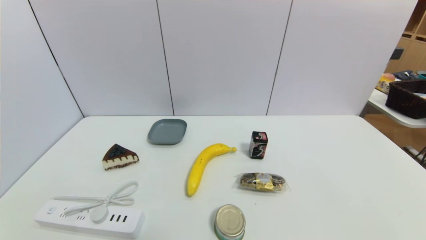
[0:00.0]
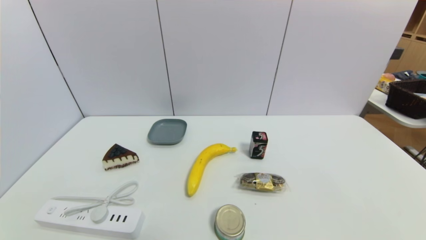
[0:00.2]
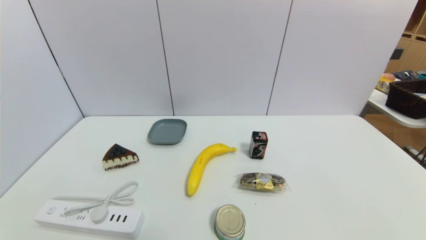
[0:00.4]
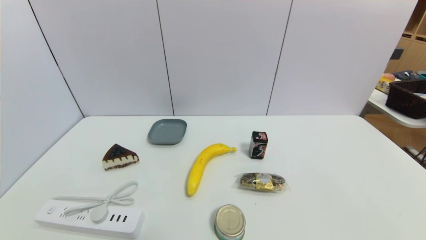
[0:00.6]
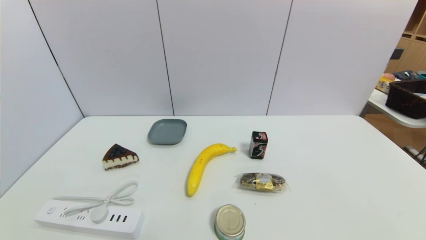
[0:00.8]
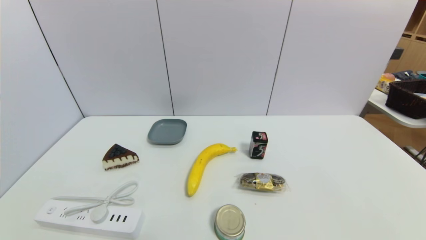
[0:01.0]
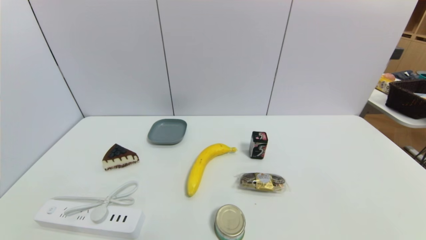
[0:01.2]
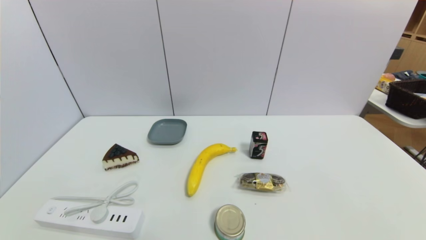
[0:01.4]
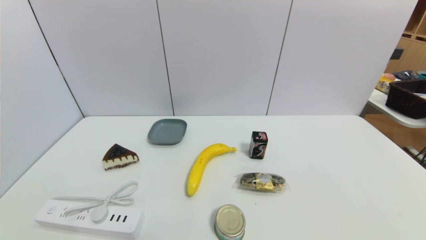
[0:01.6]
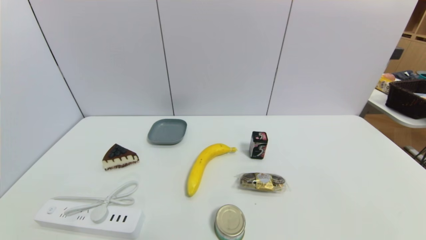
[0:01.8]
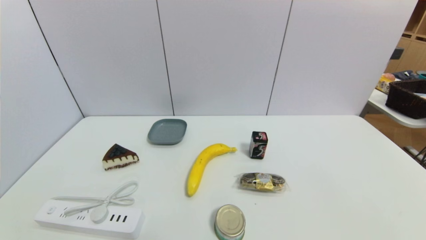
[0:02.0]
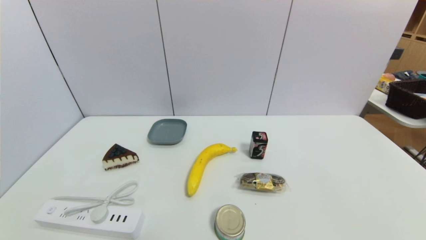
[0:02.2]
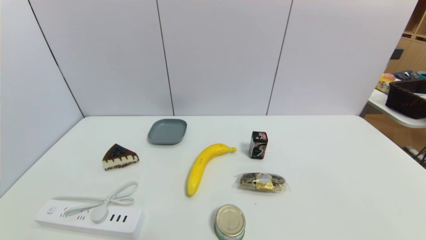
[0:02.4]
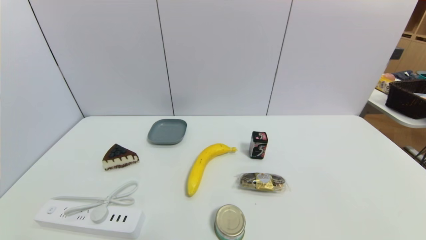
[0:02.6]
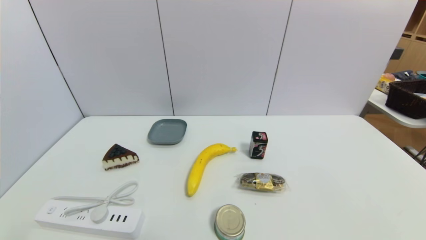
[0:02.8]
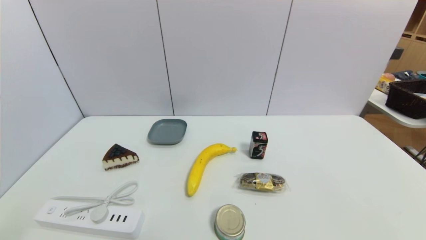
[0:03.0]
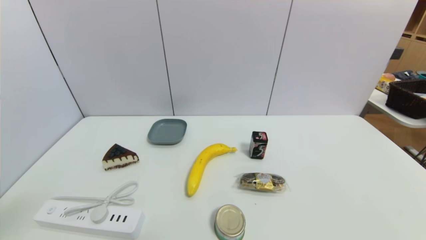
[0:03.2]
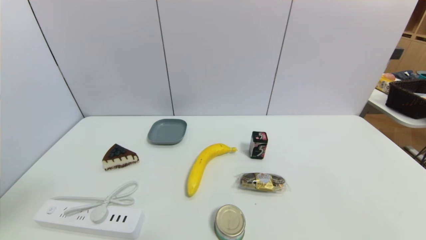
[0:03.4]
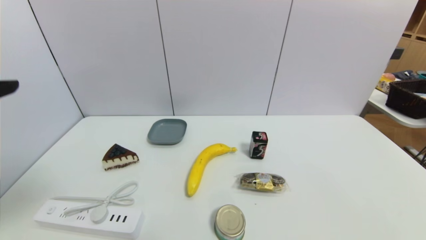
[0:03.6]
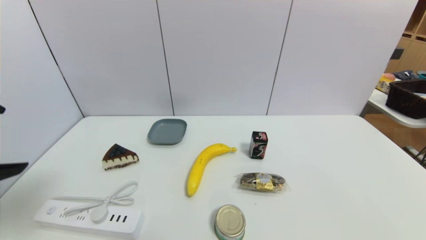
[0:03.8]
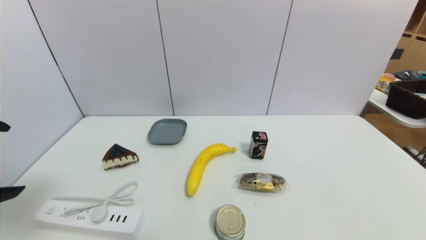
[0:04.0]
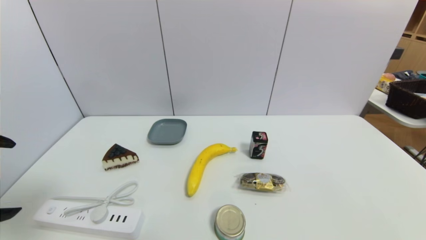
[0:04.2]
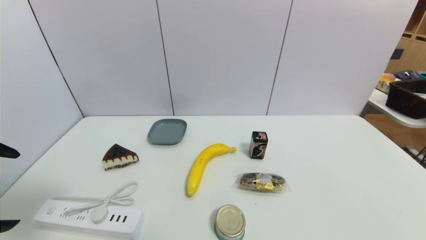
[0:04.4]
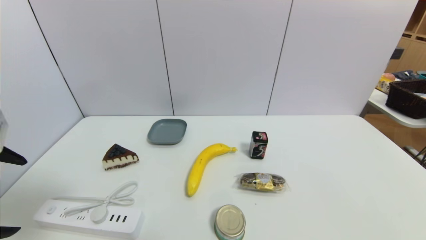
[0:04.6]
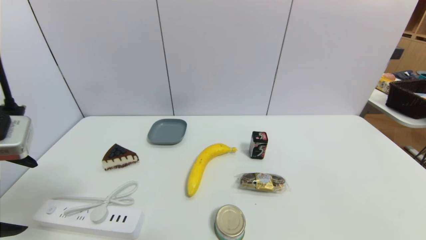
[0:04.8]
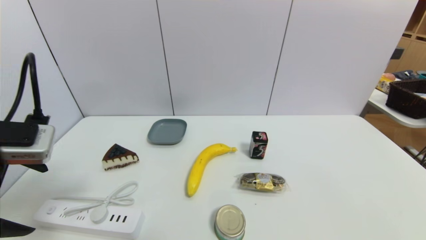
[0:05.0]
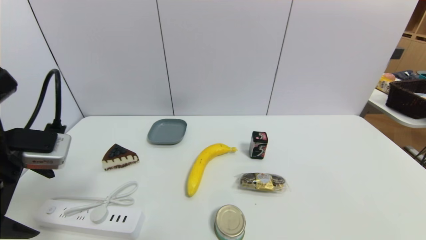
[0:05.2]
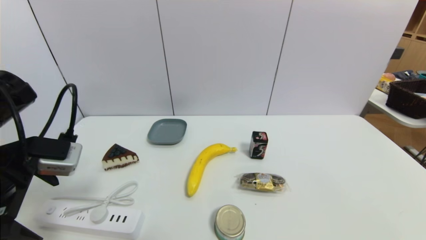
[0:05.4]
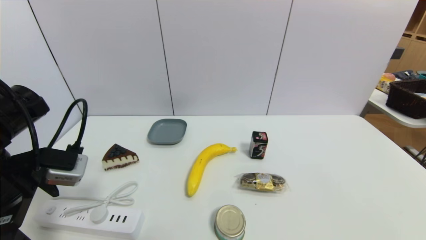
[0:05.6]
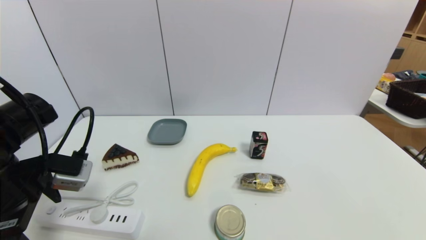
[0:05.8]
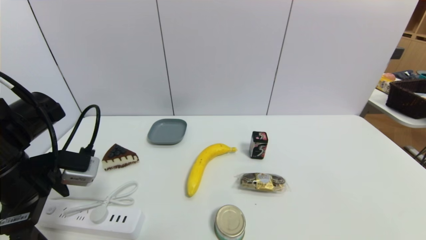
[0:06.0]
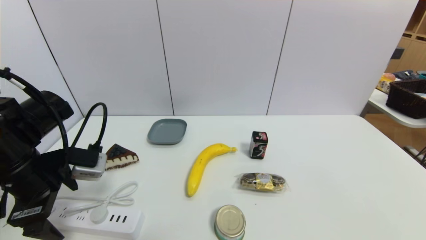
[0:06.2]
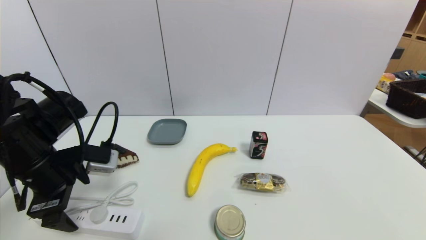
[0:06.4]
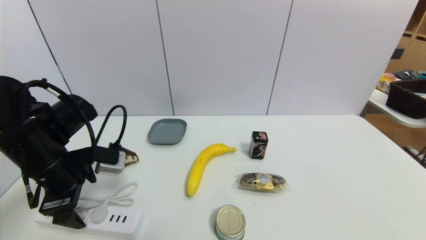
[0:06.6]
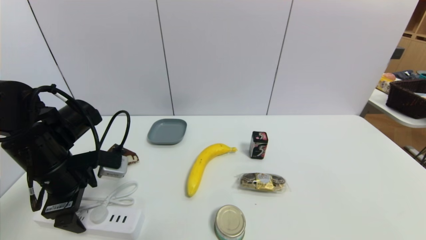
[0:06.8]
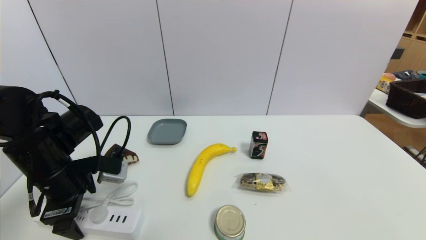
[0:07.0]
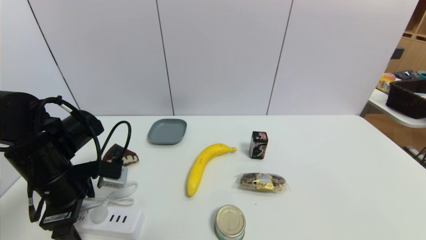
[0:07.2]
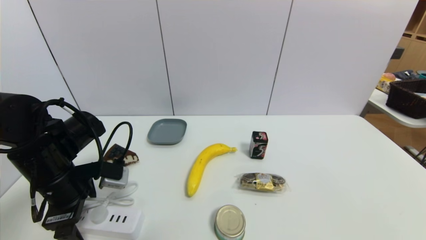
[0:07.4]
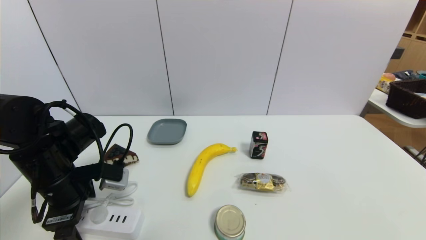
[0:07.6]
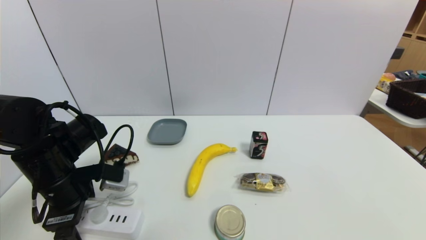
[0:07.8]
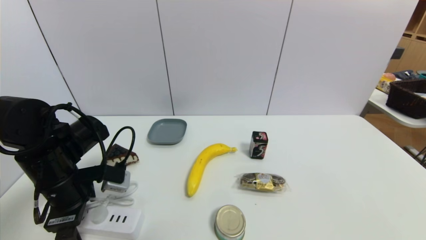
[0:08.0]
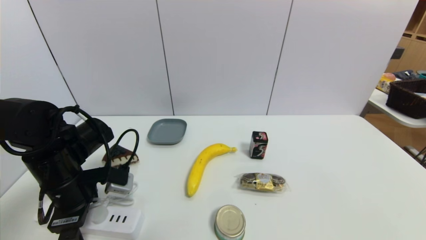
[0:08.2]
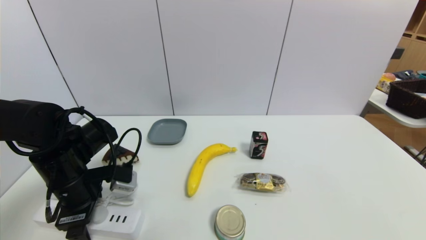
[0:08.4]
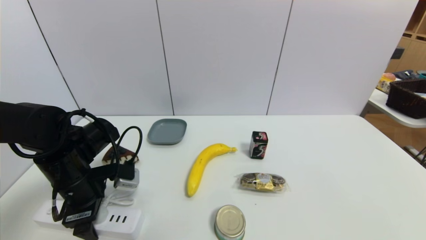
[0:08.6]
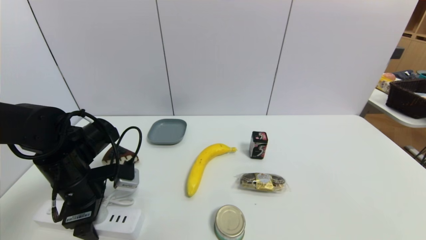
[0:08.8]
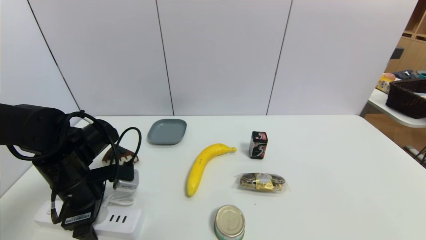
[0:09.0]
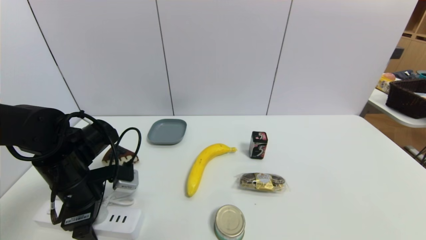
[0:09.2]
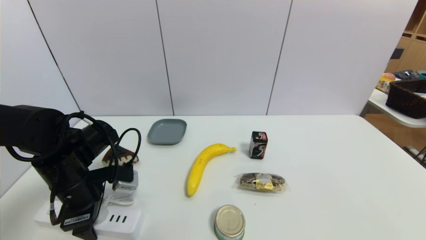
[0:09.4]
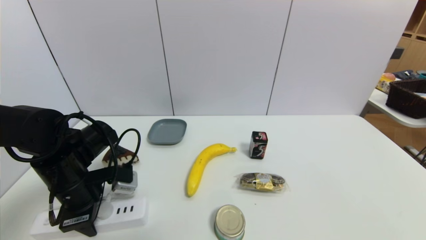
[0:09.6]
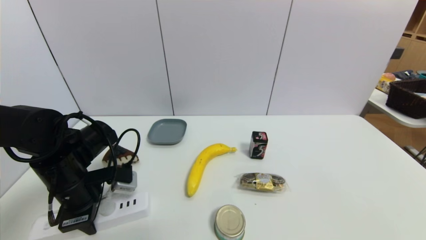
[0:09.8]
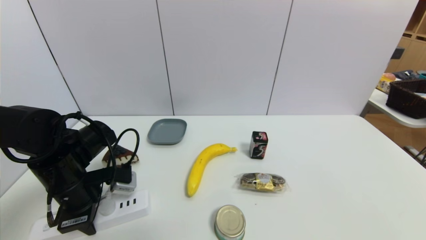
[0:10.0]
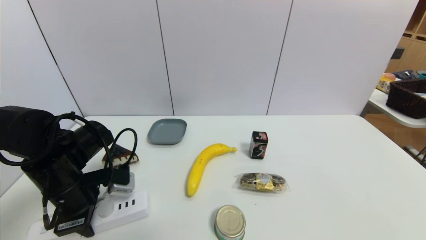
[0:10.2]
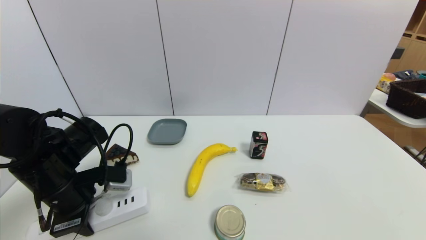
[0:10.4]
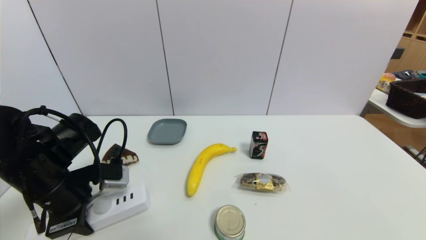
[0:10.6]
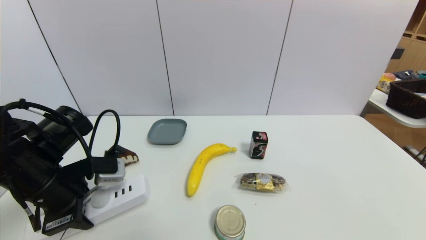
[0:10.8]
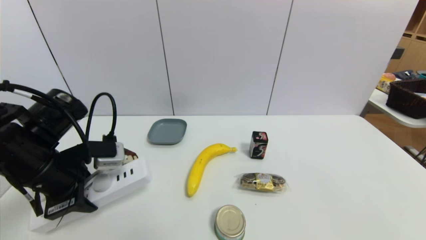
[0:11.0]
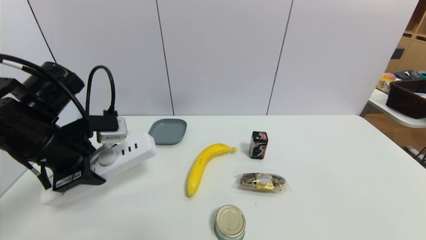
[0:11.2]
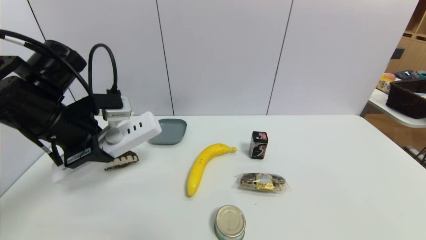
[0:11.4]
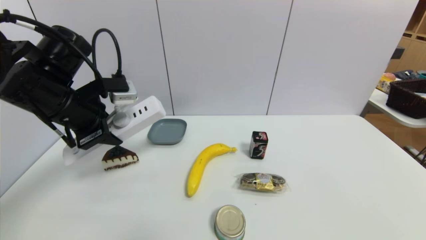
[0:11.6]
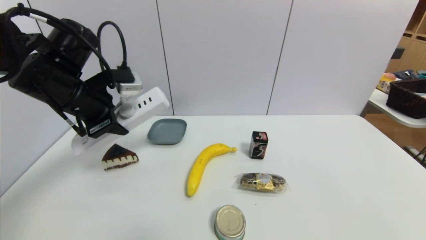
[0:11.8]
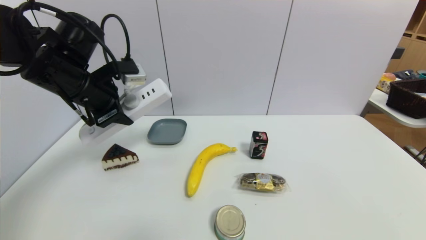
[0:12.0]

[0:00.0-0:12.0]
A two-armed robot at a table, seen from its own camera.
Task of the whole recording: use a gripper to pick the target object and place on the dish.
Step, 0:00.0 to 0:10.0: Grasp the plugboard with the left gripper.
0:00.0 to 0:01.6: Both grippers stay put.
0:03.0 to 0:04.4: The left gripper moves forward, some 10 cm.
0:04.4 to 0:06.0: The left gripper heads forward and downward, covering some 15 cm.
0:06.0 to 0:07.6: The left gripper goes roughly 5 cm downward.
0:07.6 to 0:09.0: The grippers make only small movements.
0:09.0 to 0:10.4: The left gripper closes its fingers.
0:10.4 to 0:12.0: The left gripper goes roughly 15 cm upward and forward.

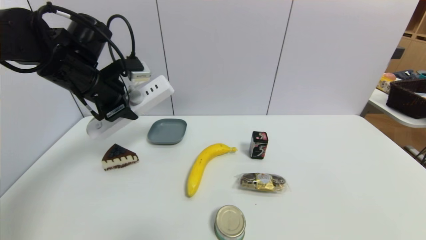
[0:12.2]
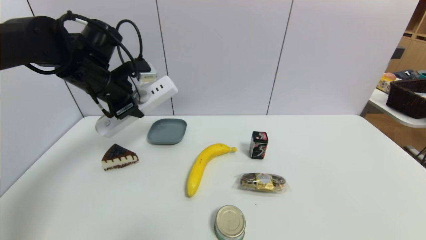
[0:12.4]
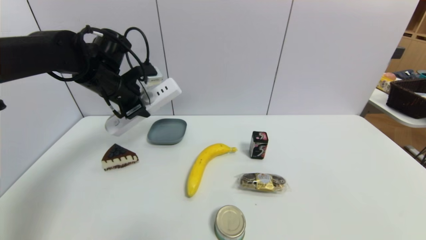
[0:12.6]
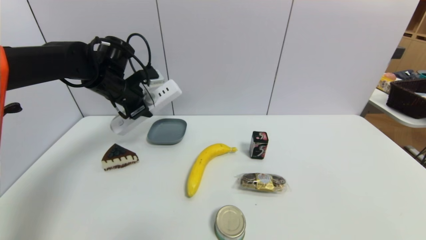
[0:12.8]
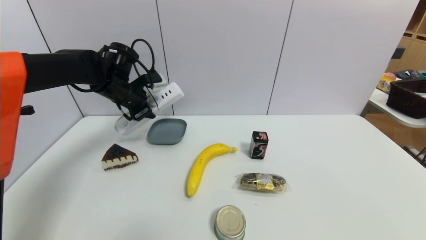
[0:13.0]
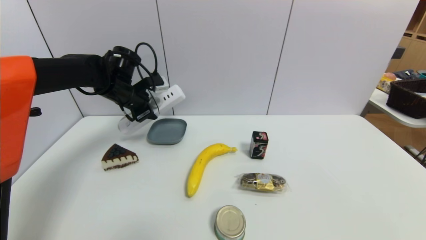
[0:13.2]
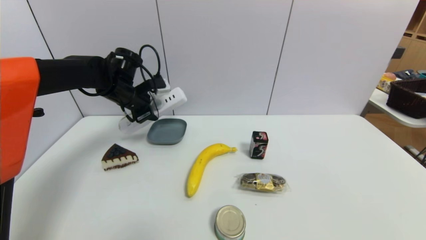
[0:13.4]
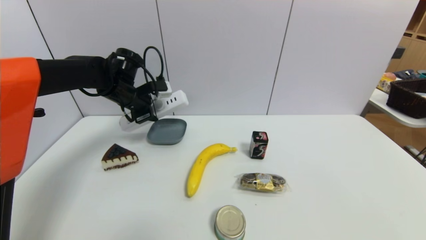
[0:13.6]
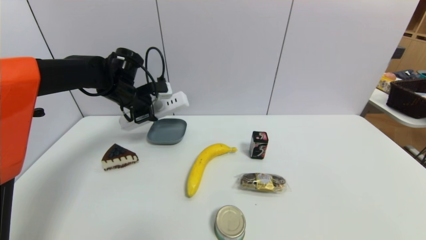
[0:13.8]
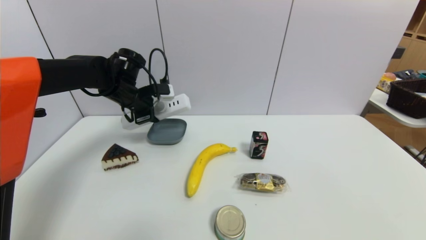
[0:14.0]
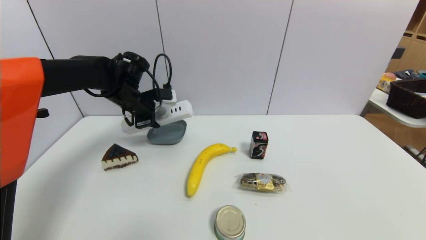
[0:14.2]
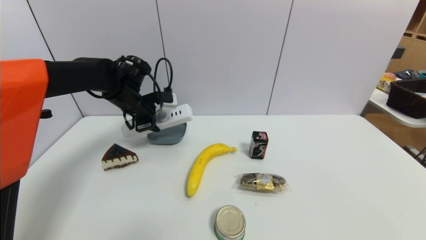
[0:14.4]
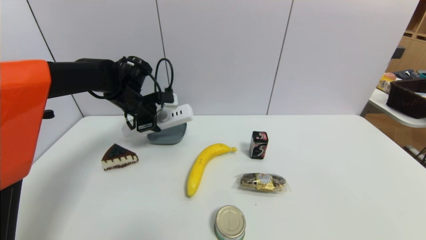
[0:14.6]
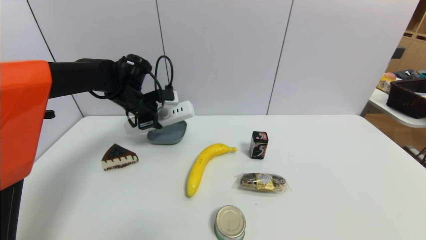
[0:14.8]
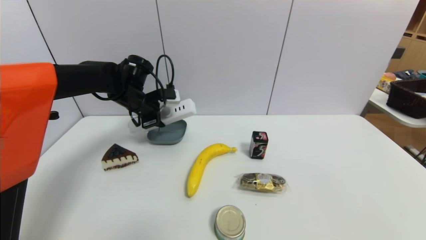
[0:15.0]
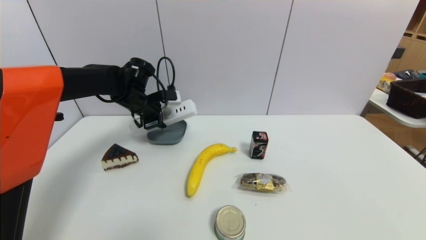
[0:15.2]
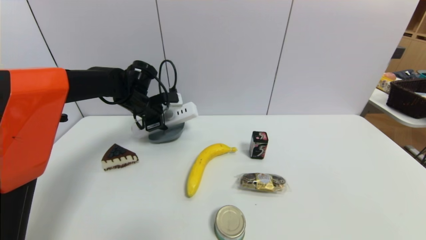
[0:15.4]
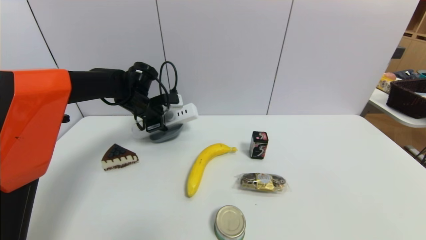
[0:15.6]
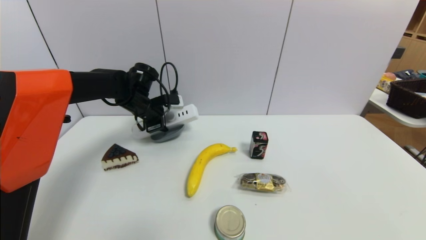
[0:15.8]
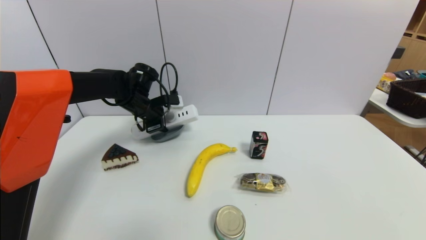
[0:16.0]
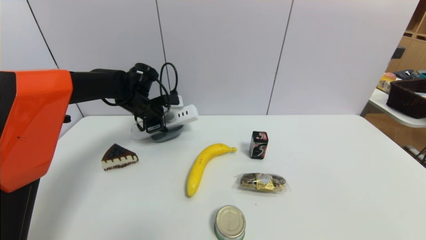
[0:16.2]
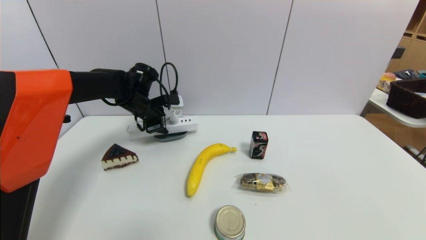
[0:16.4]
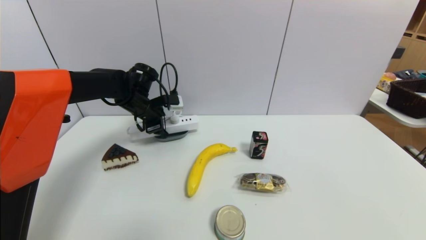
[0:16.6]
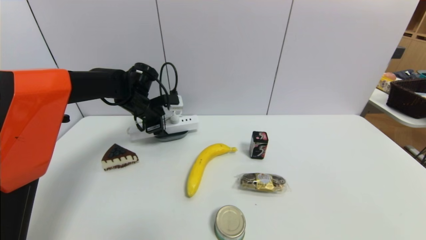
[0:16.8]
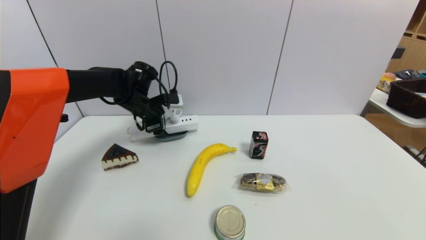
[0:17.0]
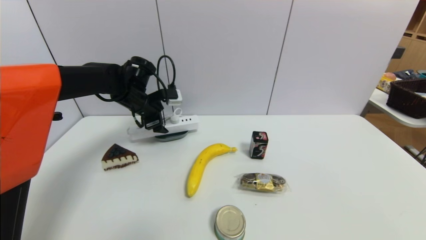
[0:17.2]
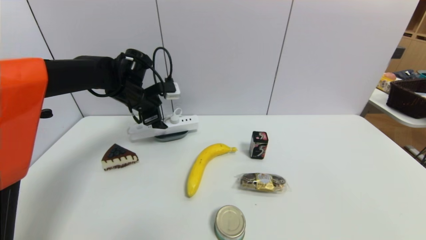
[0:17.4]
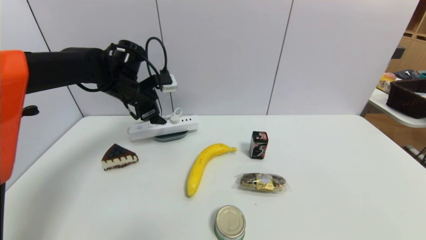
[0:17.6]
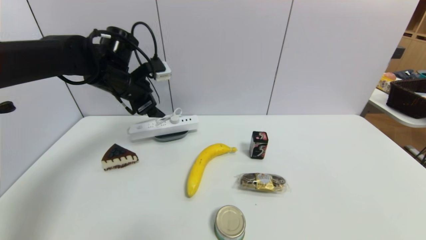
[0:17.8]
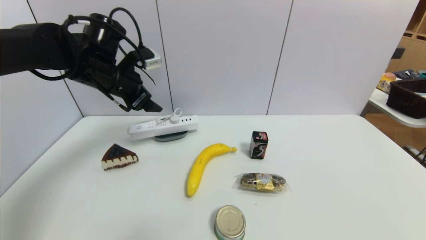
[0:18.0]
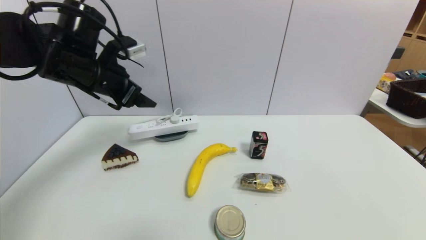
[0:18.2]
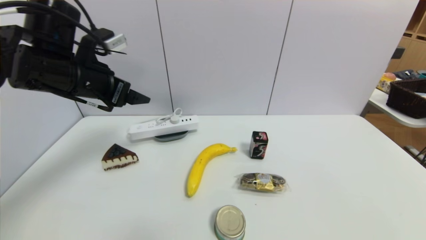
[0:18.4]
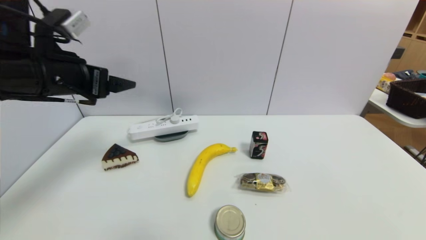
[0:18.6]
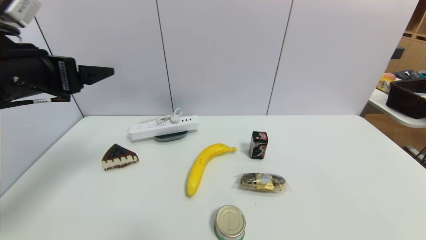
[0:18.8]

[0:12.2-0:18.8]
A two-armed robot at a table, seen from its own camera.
Task of the whole recording: use a gripper to pick the target object and place on the dish.
Step, 0:12.2 to 0:17.8: Place the plugboard on the dish with the left gripper.
0:12.2 to 0:13.8: The left gripper heads forward and downward, covering some 10 cm.
0:13.8 to 0:15.4: The grippers make only small movements.
0:15.4 to 0:17.2: The left gripper opens.
0:17.2 to 0:18.8: The left gripper shifts about 25 cm backward and upward.
